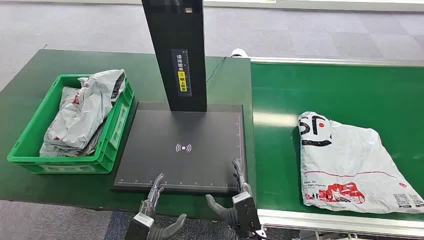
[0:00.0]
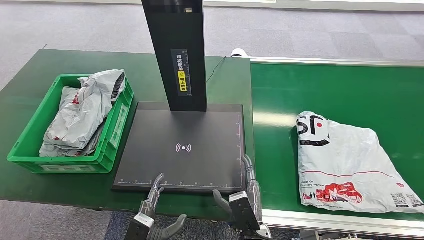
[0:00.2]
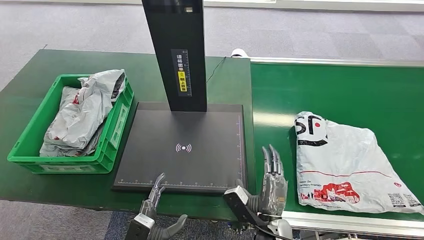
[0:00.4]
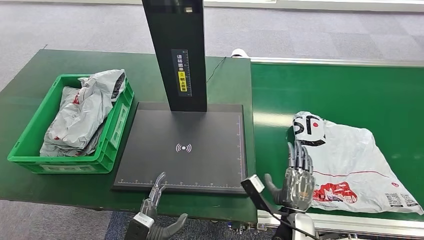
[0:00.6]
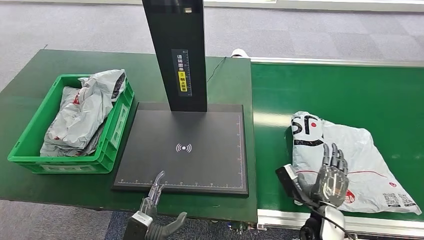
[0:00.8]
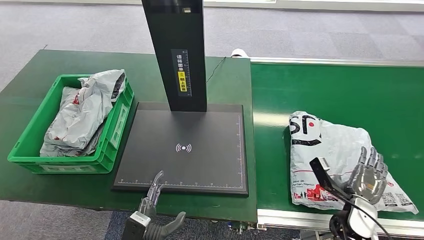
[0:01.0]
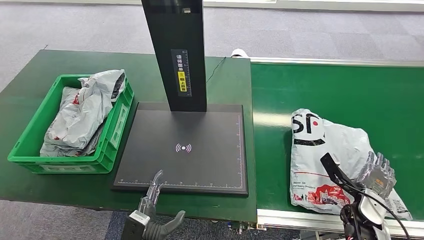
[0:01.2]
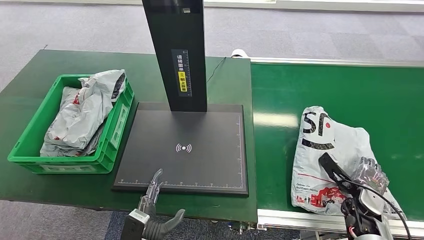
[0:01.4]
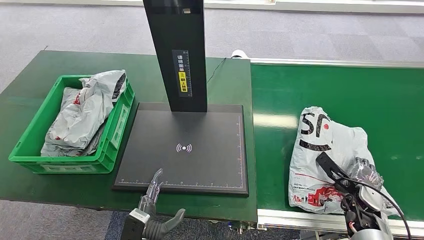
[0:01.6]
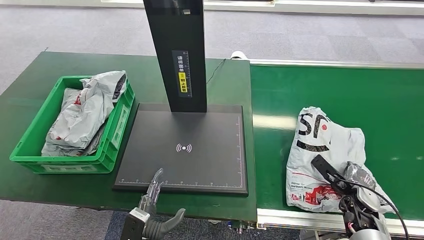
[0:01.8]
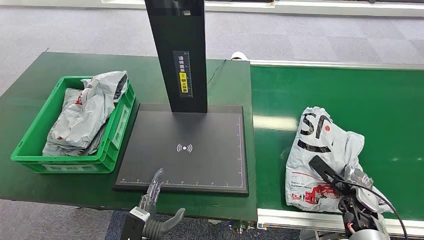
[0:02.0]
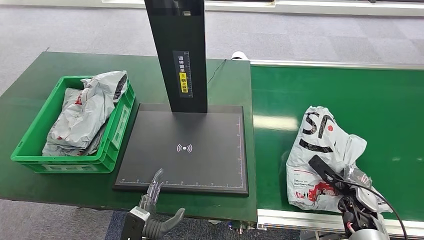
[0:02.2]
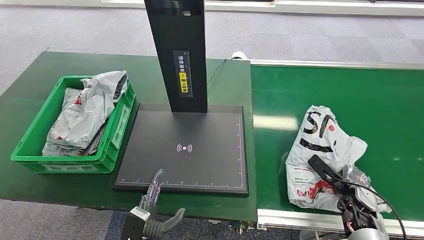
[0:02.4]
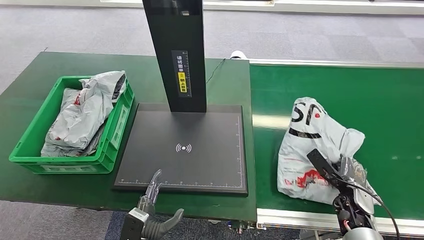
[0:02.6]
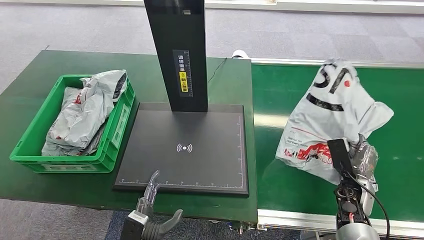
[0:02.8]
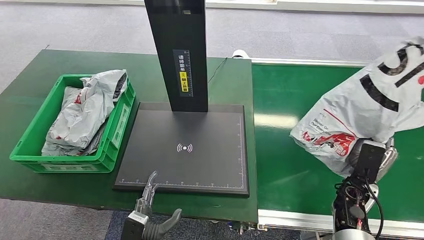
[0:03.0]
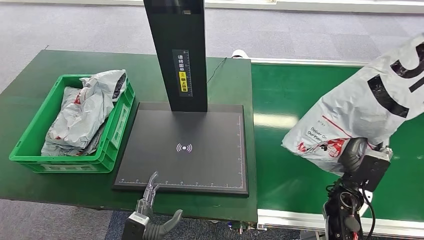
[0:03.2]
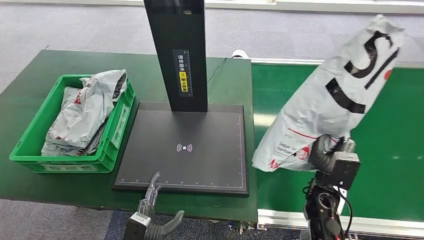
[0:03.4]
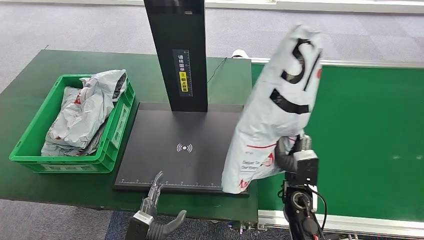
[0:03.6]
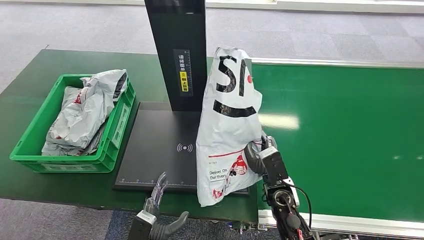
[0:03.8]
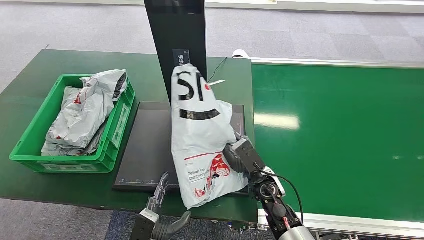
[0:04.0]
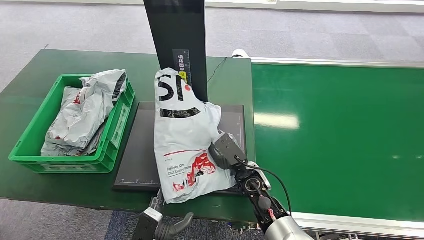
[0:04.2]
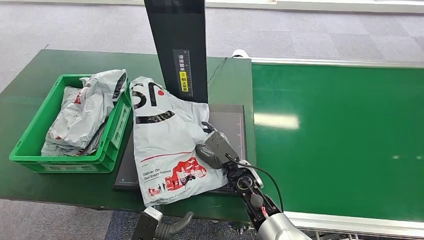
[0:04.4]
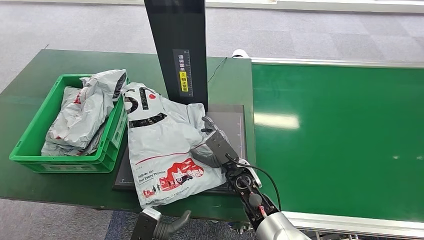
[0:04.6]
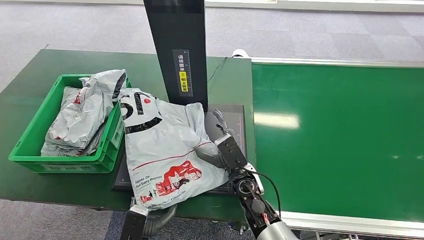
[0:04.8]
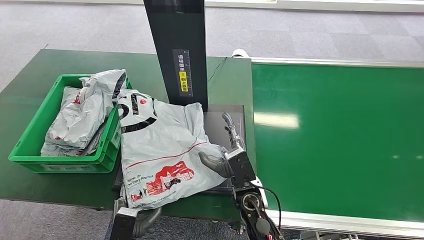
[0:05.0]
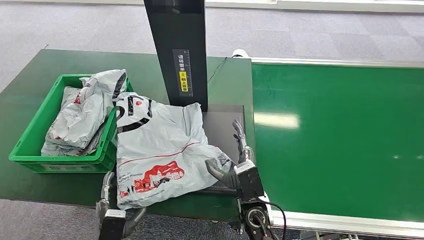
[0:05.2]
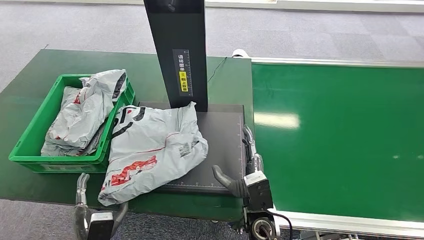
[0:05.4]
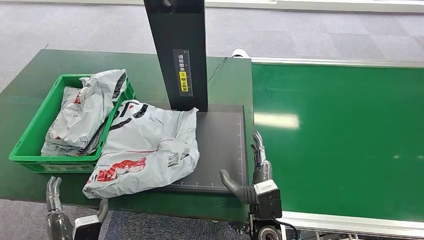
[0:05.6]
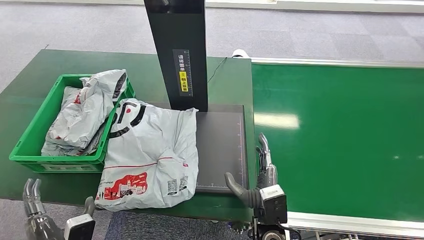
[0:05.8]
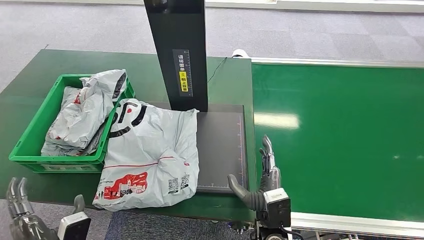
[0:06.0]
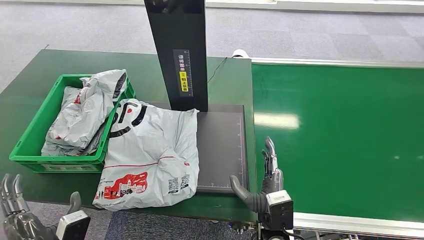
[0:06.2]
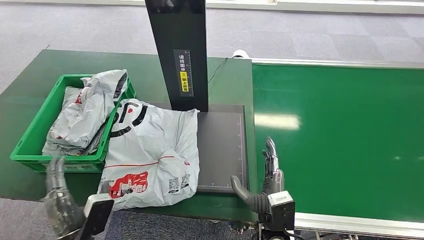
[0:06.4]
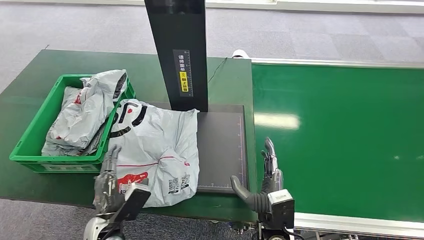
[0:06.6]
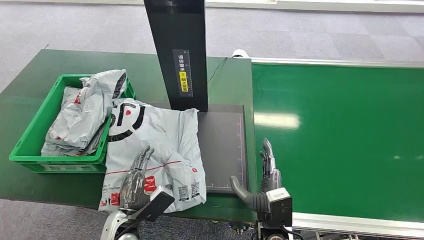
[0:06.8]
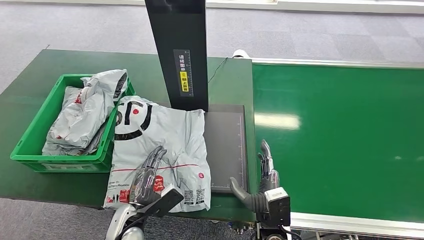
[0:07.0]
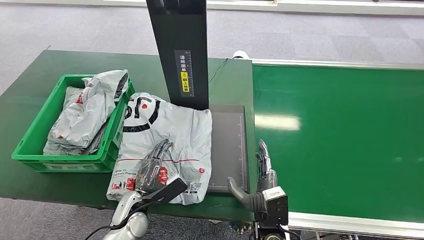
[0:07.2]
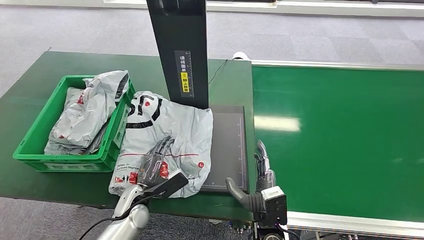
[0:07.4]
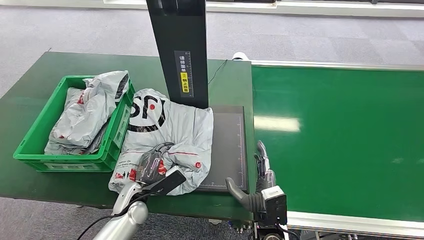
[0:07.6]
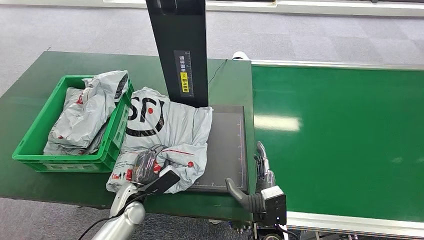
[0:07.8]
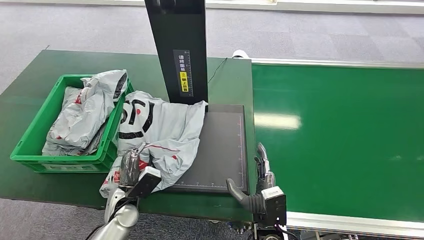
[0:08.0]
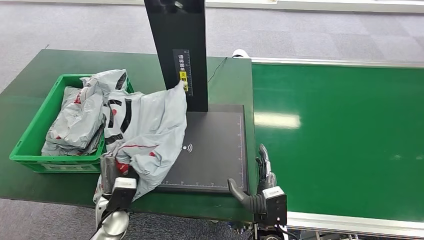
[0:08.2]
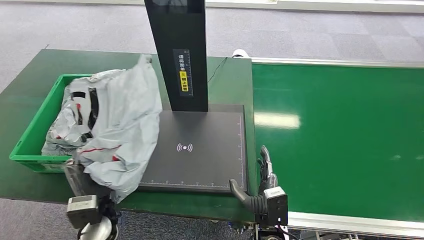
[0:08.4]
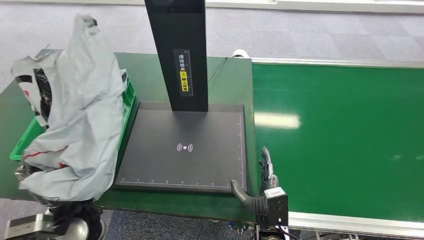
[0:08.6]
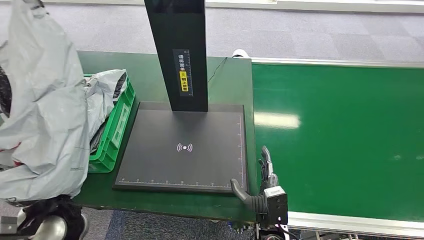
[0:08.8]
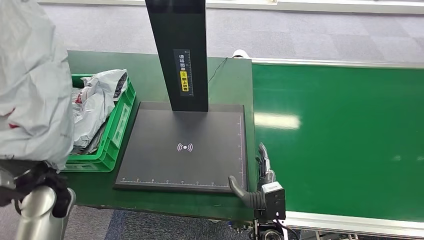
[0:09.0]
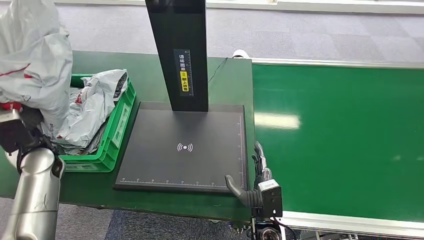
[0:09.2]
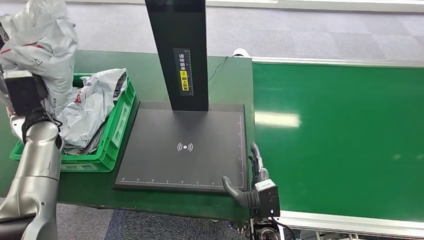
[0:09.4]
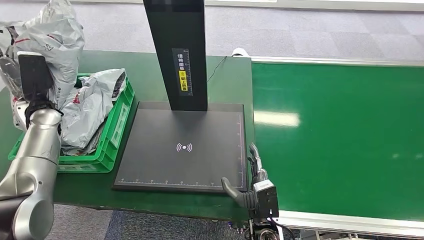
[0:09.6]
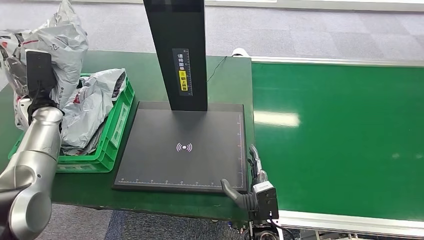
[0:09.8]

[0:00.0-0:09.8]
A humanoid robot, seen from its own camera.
Step, 0:00.0 to 0:03.2: Pick up the package from the conveyor belt.
Step, 0:03.4 to 0:06.4: Place the package onto the inbound machine.
Step, 0:06.6 to 0:08.6: Pick up the package from the inbound machine.
0:04.2 to 0:05.6: The right hand travels backward by approximately 10 cm, while the left hand moves to the left, about 10 cm.
0:05.6 to 0:07.0: The left hand moves forward and to the right, some 10 cm.
0:07.0 to 0:08.4: The left hand heads upward, covering some 5 cm.

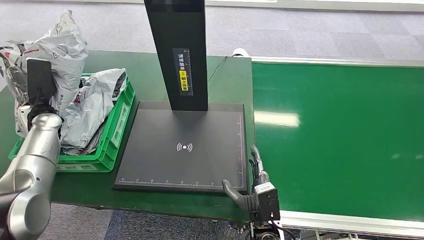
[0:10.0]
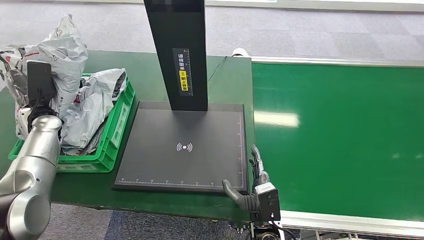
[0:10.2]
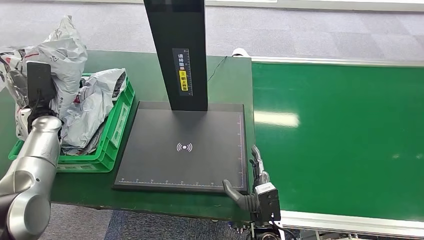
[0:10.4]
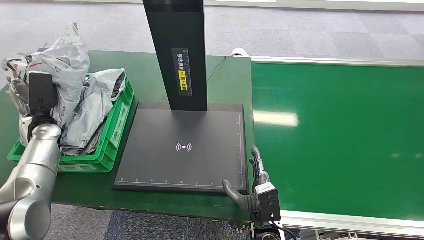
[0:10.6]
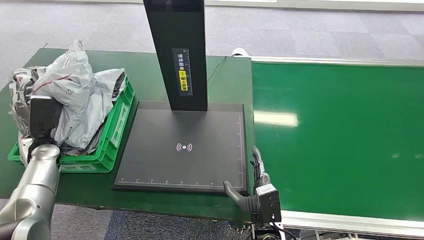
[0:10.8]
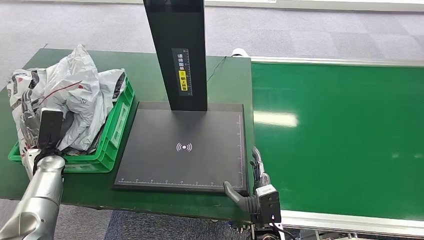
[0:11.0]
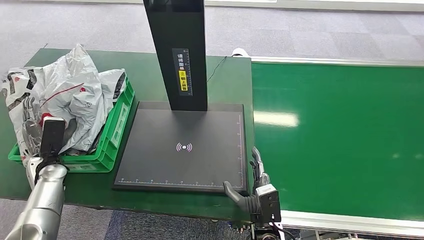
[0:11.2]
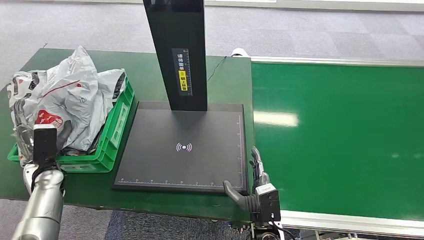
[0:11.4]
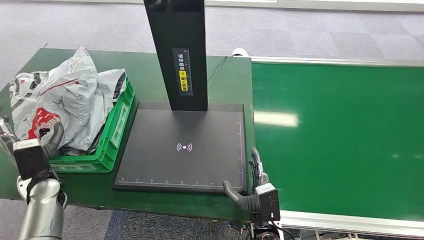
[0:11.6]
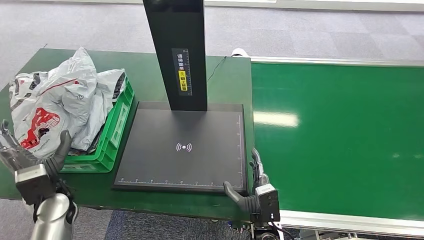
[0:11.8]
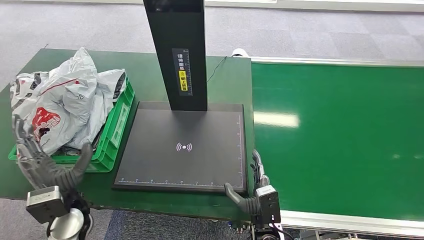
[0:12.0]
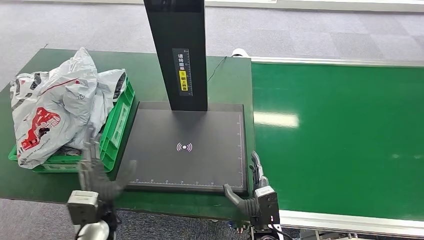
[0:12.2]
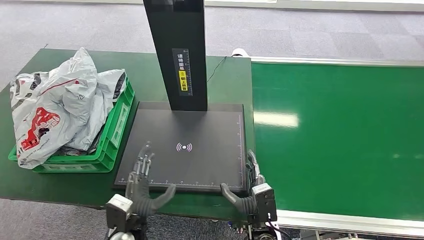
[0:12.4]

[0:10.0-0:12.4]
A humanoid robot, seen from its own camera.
Step, 0:10.0 to 0:12.4: Place the package into the parcel locker.
0:10.0 to 0:11.2: The left hand travels downward and backward by roughly 15 cm.
0:11.2 to 0:12.4: The left hand travels to the right and backward by approximately 30 cm.
